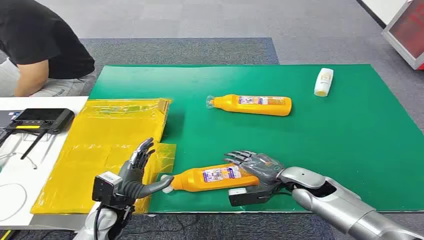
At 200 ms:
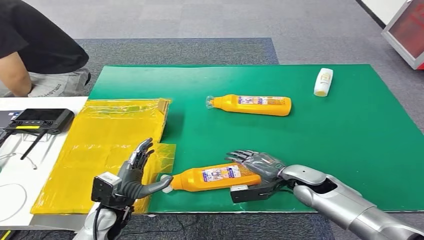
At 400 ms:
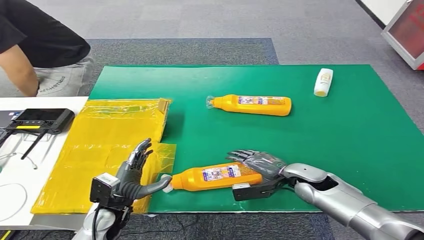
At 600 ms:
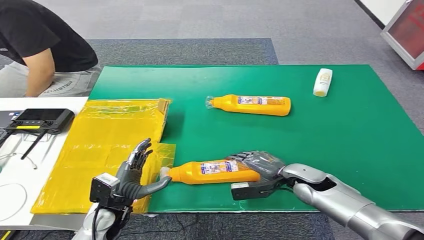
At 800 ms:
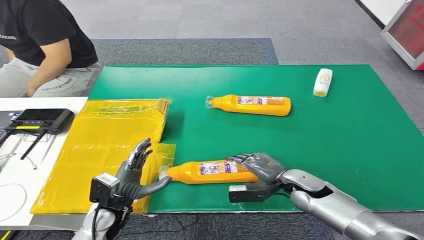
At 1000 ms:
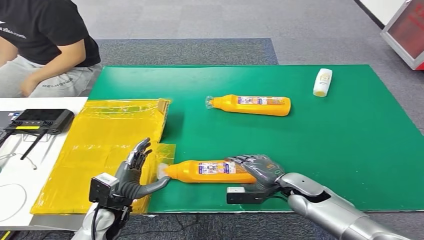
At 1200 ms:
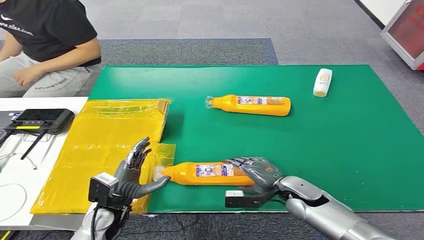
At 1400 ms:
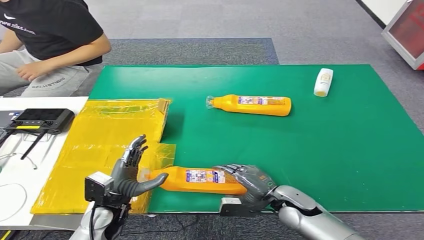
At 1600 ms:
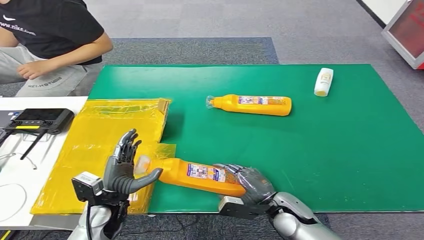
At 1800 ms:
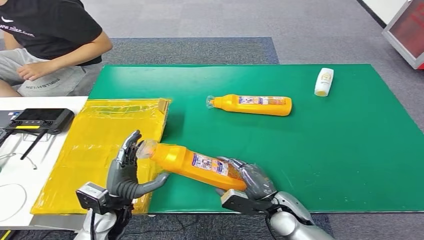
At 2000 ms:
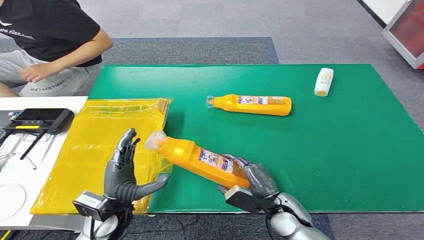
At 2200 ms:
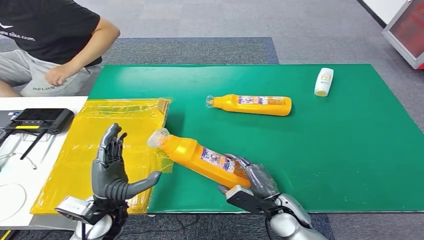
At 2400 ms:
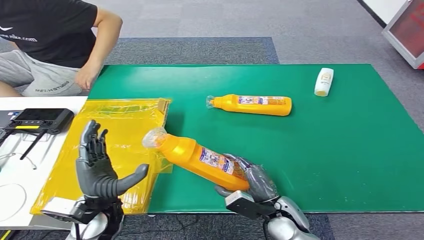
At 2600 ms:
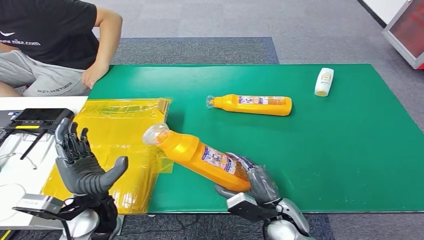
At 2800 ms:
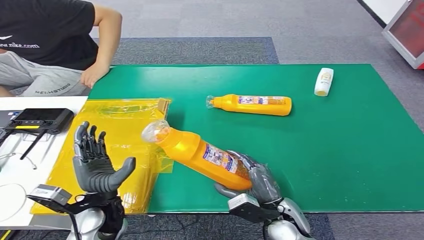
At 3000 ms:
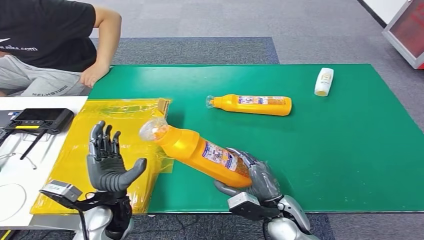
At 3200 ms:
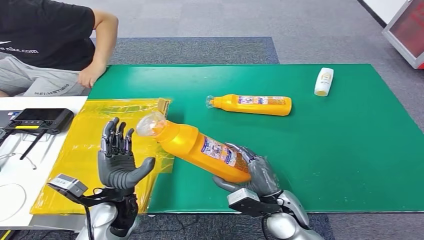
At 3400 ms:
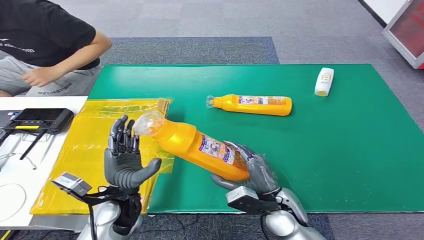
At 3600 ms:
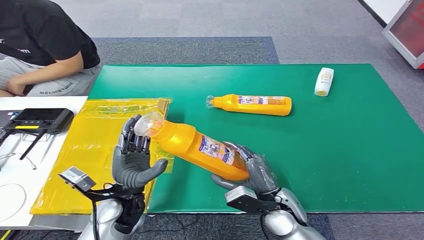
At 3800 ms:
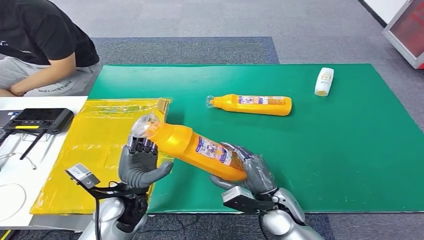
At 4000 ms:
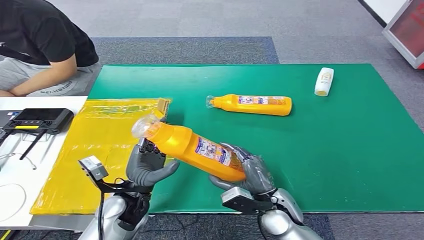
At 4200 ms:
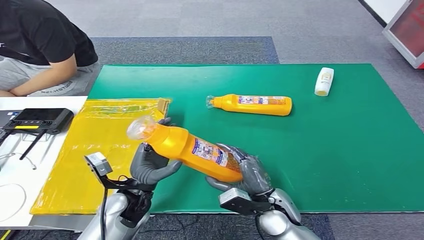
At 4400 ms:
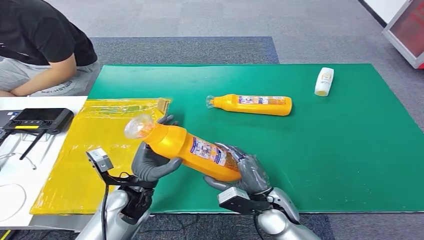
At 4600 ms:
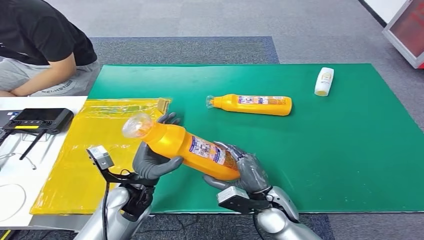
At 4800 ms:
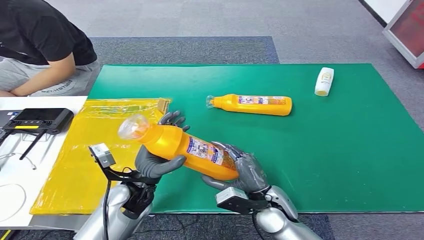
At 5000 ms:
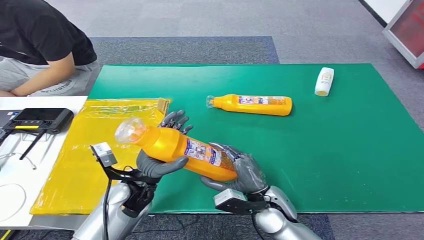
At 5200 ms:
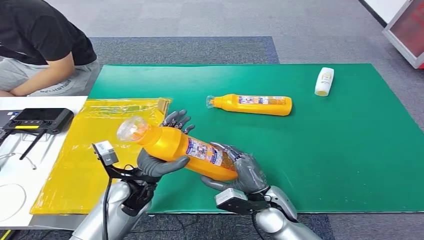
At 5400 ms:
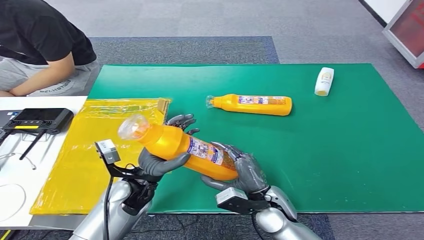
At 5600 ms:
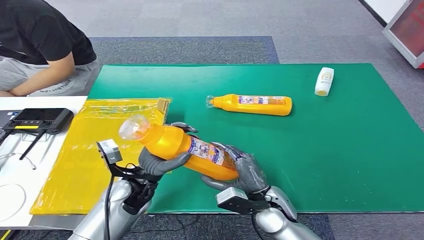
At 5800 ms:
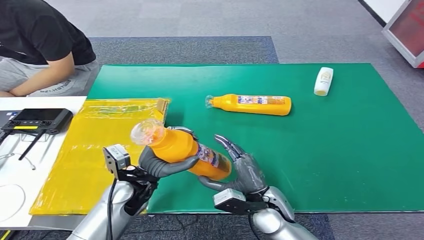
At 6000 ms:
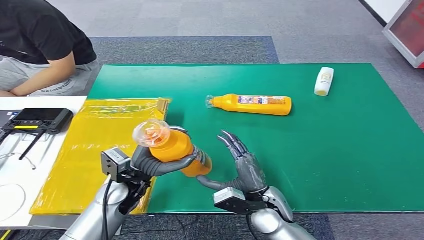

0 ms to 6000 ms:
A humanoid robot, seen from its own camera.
Step, 0 ms to 3200 ms: Pick up the bottle from the table.
Step, 3600 ms to 6000 ms: Turn the bottle to the front side.
1600 ms to 3000 ms: The right hand ends up about 5 cm from where it was.

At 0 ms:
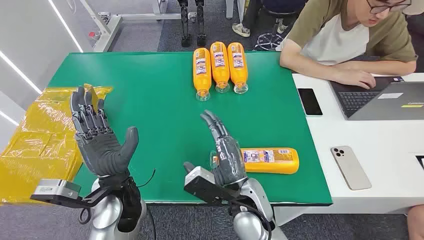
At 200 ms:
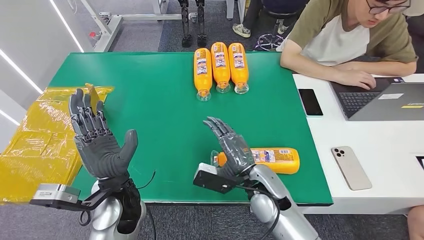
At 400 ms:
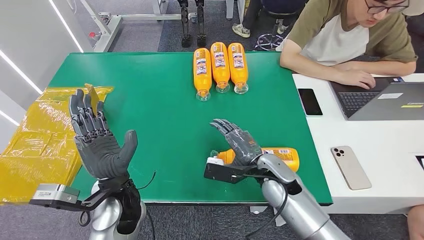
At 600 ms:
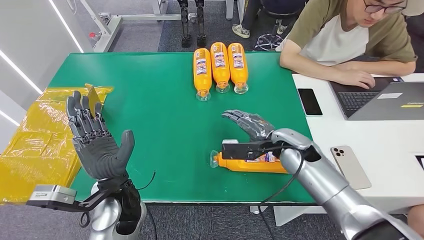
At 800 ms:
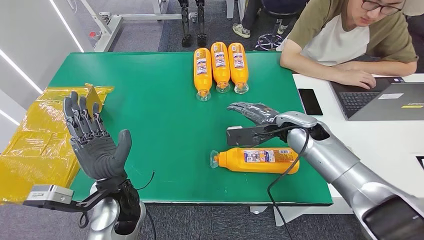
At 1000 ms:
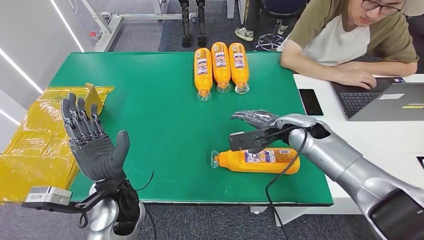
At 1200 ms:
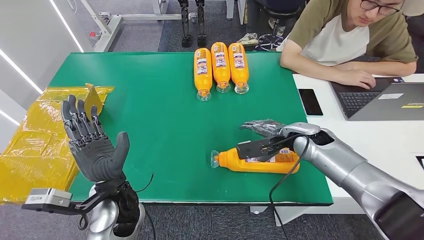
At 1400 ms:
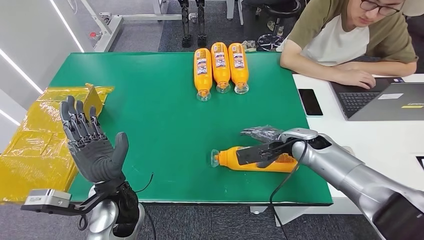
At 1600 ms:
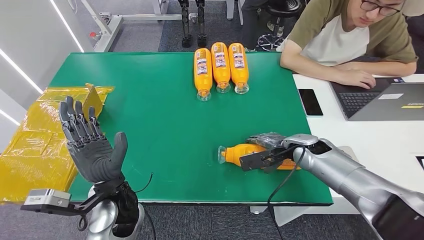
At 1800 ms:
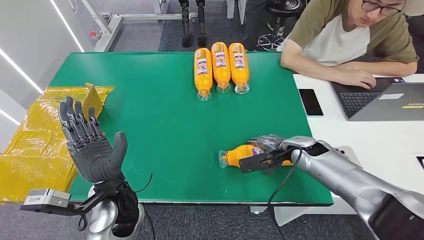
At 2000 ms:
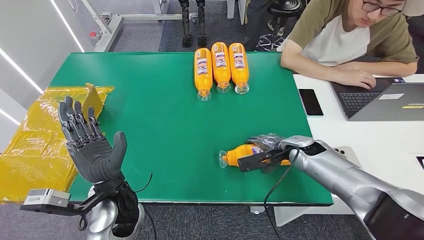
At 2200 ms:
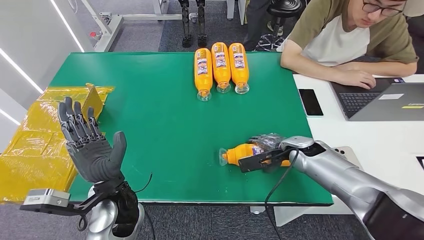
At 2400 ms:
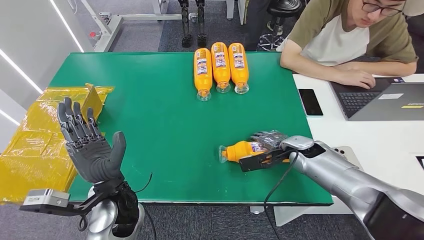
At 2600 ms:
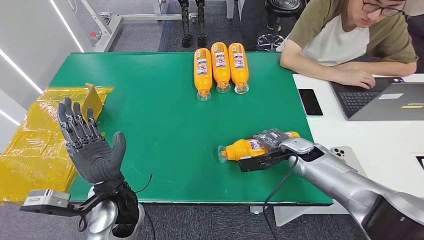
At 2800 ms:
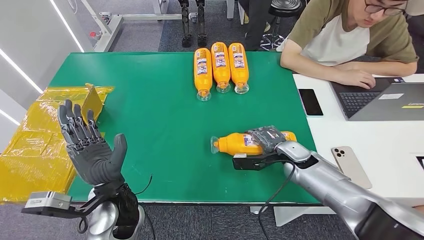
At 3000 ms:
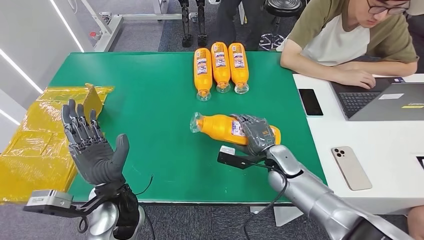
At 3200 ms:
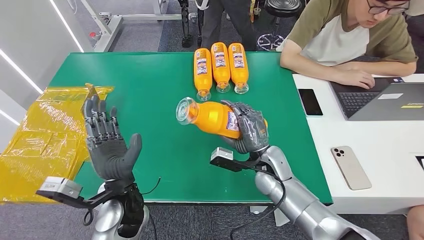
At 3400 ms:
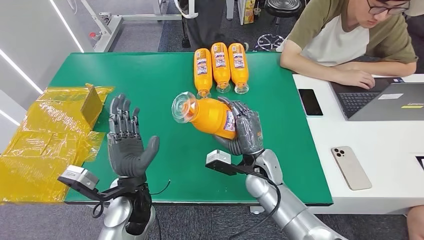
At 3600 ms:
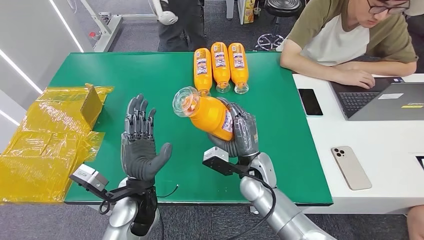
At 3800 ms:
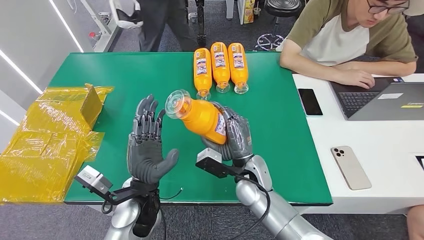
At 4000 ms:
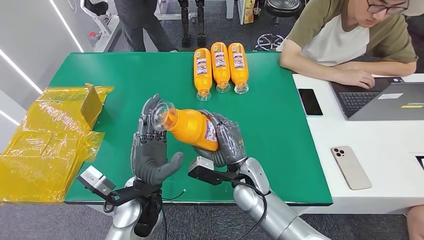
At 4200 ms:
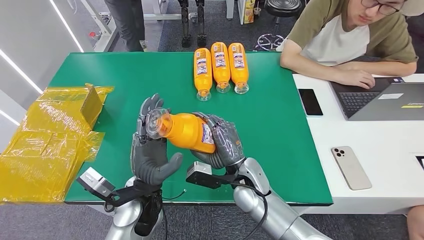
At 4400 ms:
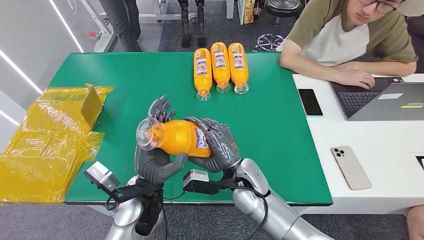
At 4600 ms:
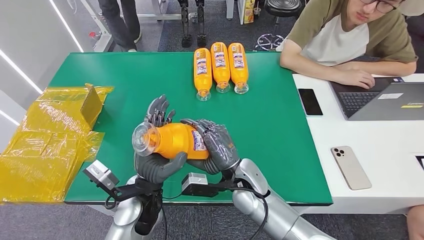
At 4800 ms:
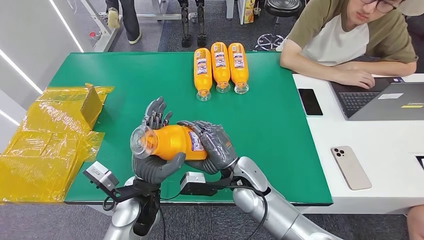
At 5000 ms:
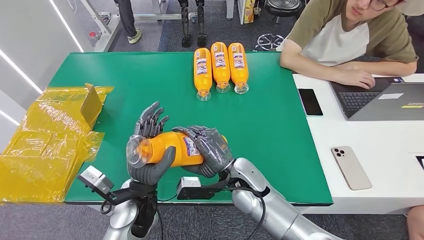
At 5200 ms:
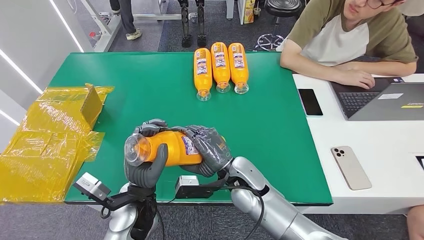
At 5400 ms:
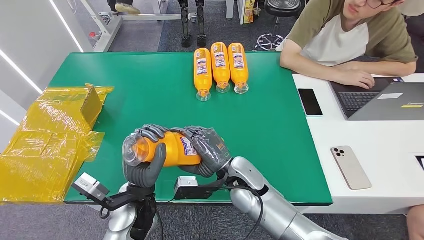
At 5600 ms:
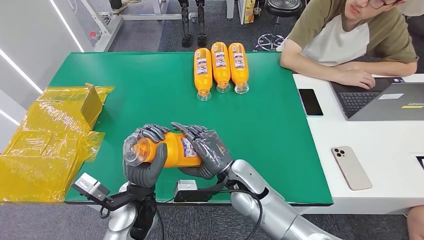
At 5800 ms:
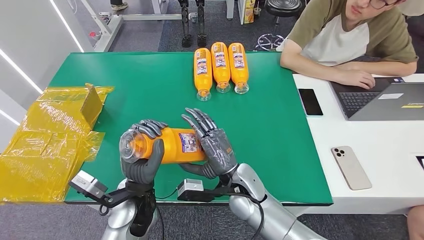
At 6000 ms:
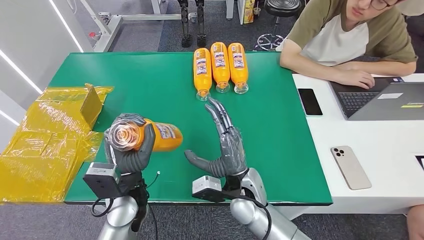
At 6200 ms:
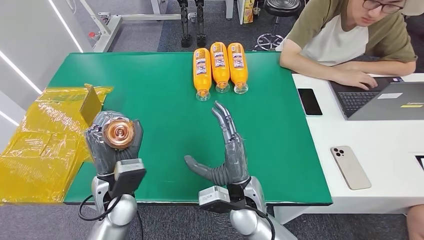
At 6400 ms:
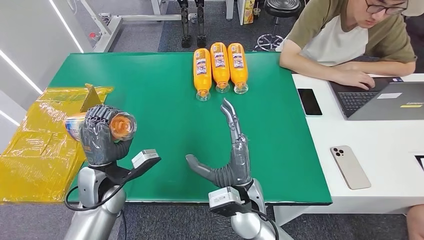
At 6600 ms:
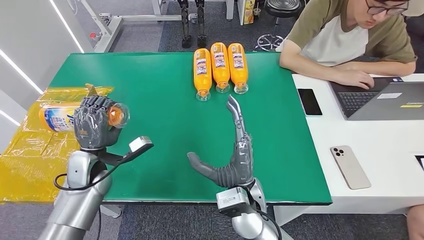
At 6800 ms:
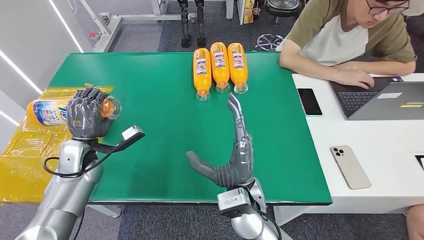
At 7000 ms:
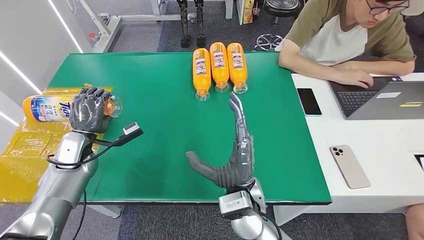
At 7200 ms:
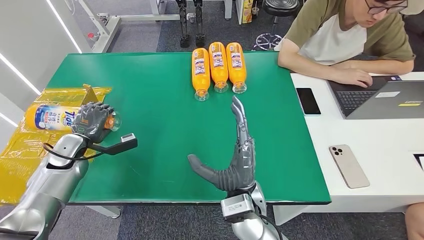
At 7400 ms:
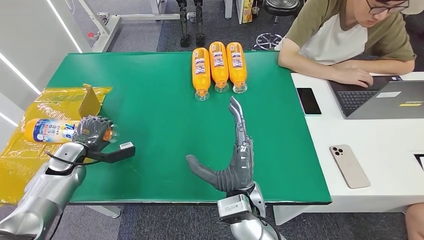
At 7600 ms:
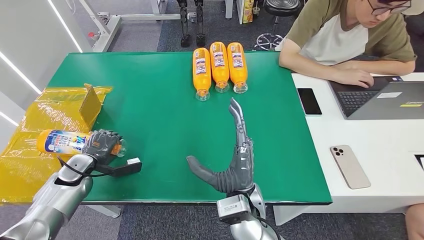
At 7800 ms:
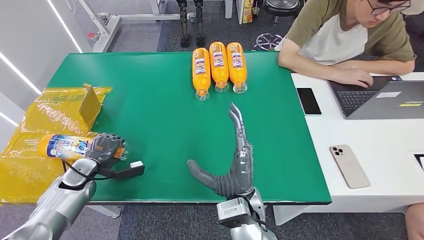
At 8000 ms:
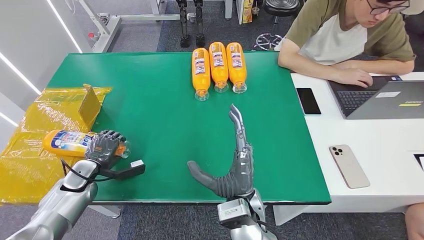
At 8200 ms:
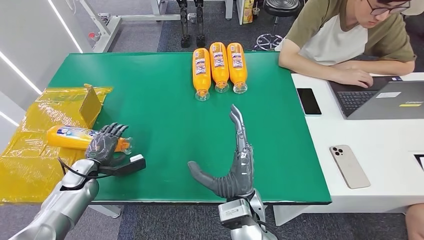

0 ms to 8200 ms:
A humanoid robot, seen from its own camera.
Step, 0 ms to 3400 ms: Pick up the bottle from the table.
Step, 3600 ms to 8200 ms: Turn the bottle to the front side.
6600 ms to 8200 ms: The left hand heads to the left and downward, covering roughly 15 cm.

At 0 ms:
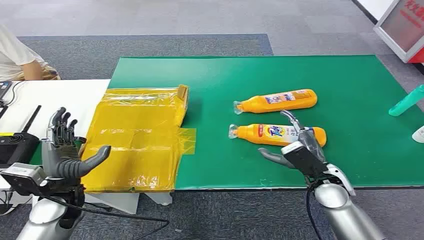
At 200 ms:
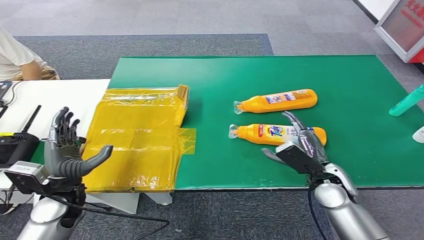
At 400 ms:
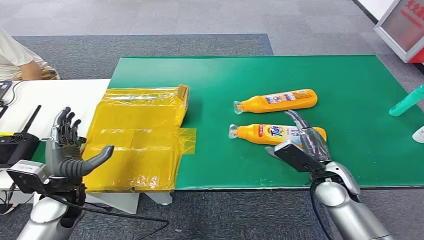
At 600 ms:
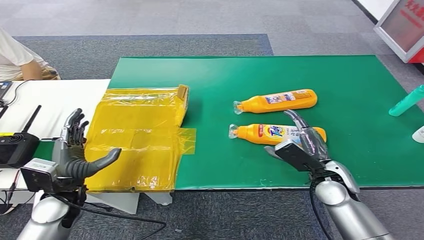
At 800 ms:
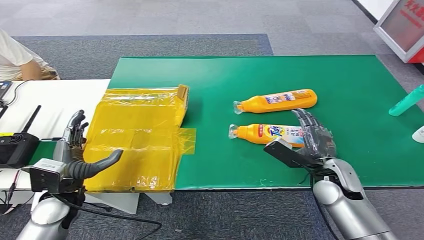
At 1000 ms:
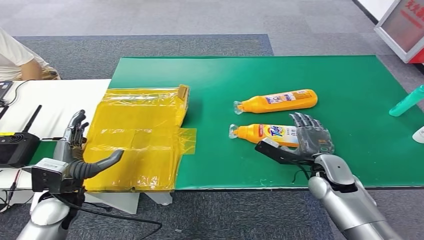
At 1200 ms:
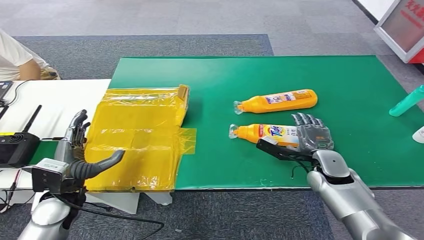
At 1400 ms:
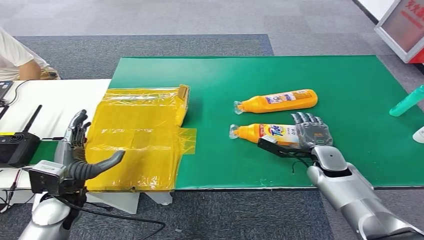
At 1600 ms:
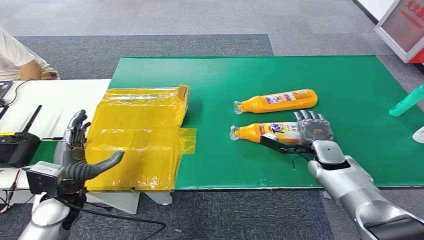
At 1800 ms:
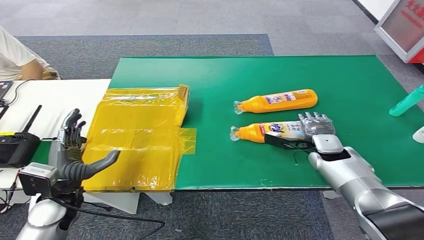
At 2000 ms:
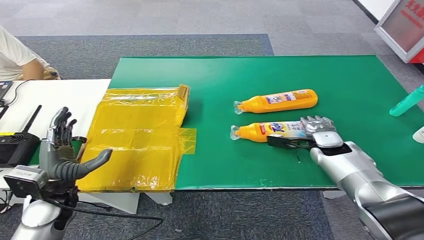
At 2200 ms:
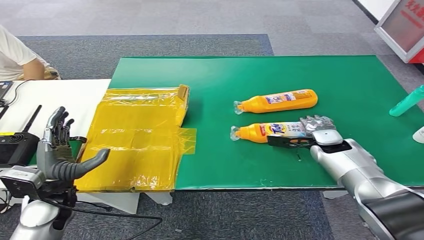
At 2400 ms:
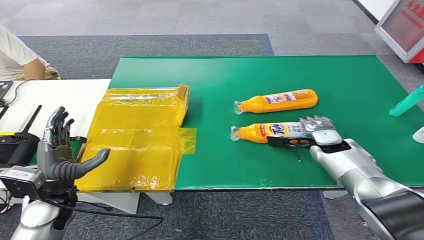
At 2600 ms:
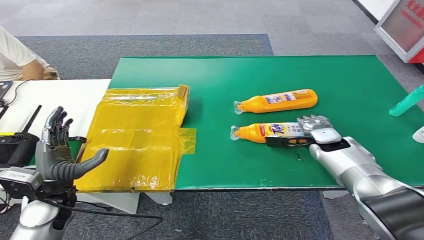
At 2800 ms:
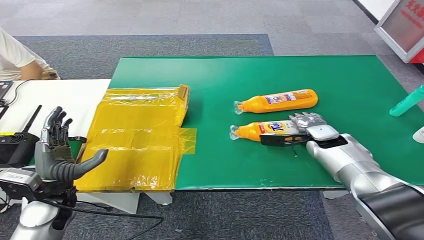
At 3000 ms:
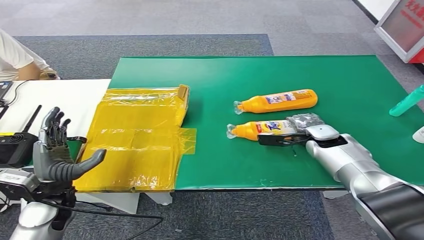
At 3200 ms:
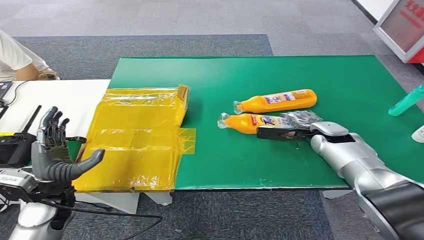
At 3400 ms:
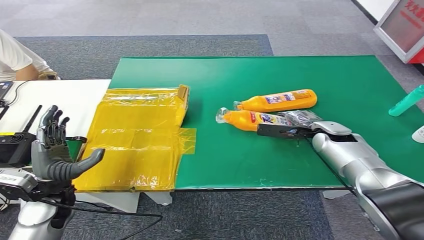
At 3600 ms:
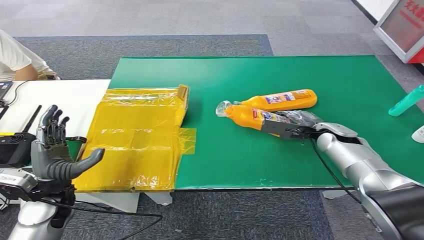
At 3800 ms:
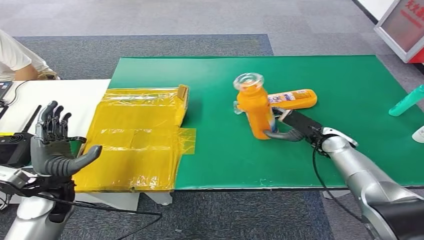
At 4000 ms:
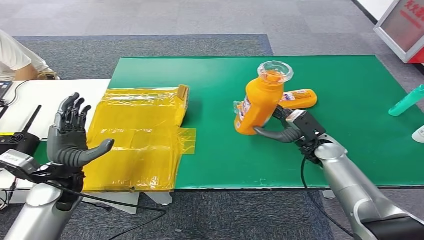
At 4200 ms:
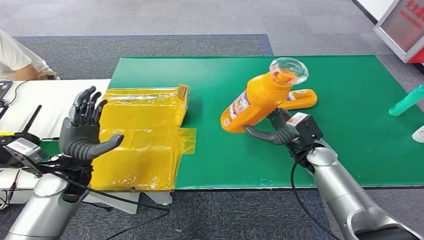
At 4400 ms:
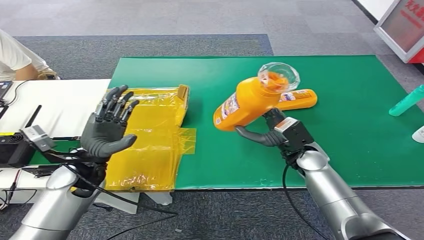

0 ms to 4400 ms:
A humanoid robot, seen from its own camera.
1400 ms to 3000 ms: The right hand shifts approximately 5 cm forward.
